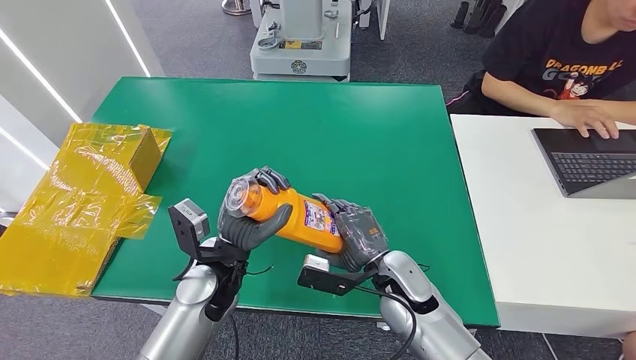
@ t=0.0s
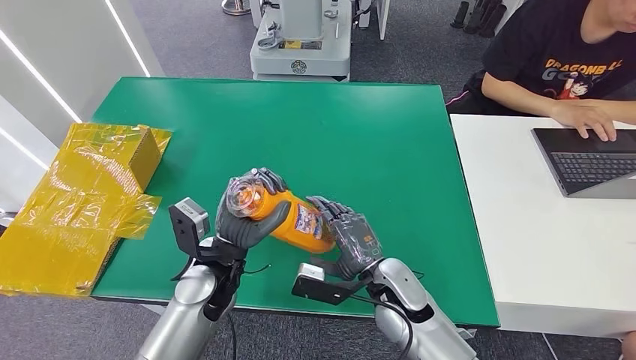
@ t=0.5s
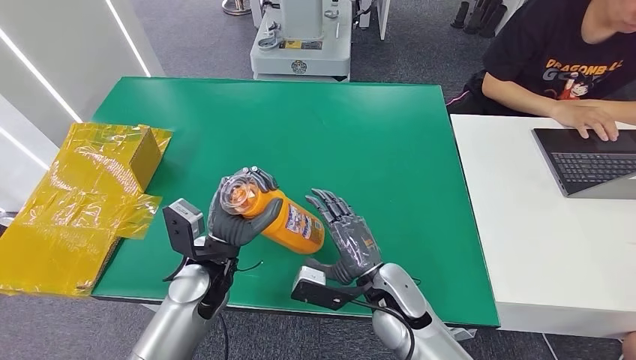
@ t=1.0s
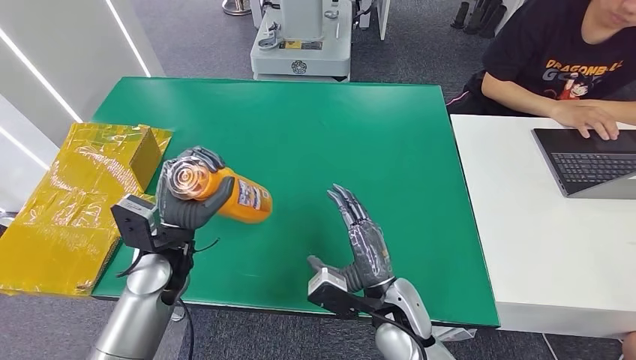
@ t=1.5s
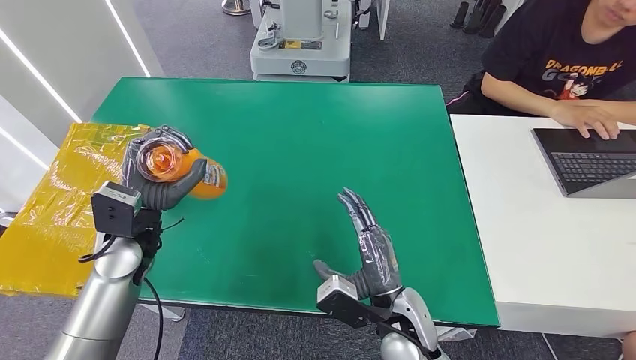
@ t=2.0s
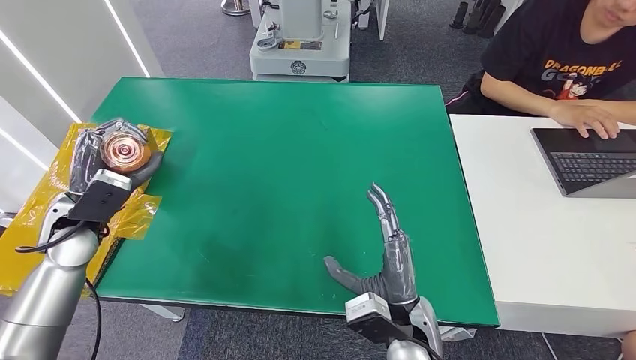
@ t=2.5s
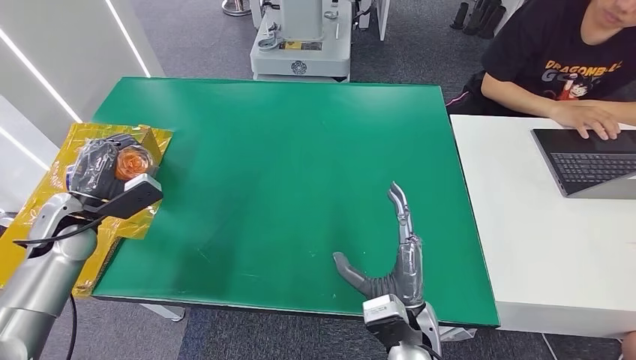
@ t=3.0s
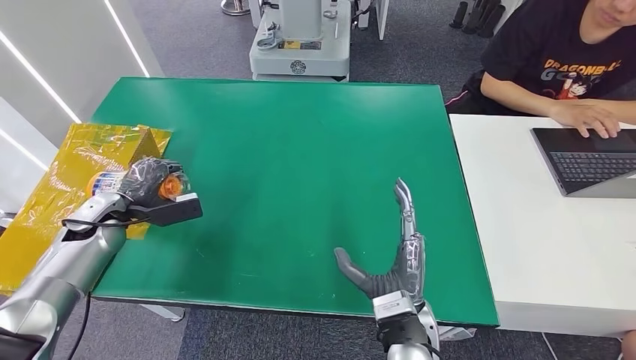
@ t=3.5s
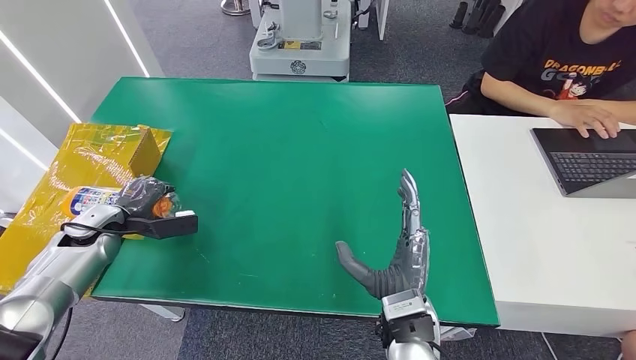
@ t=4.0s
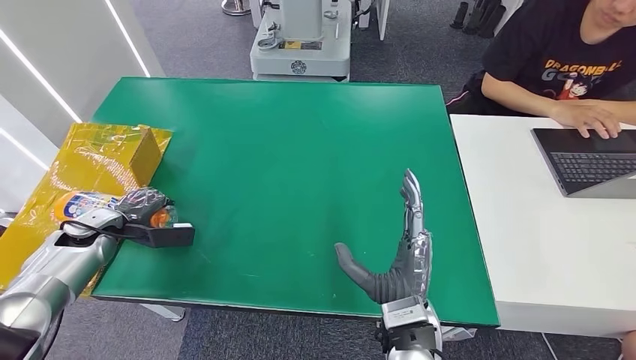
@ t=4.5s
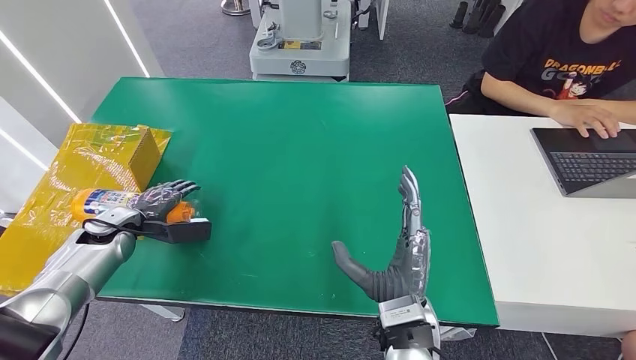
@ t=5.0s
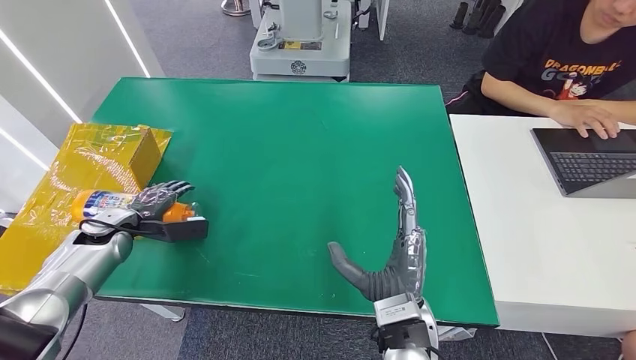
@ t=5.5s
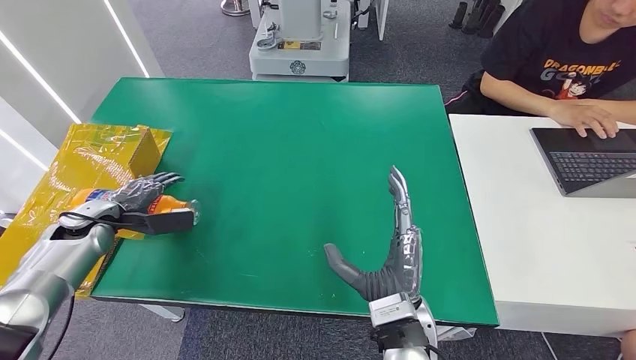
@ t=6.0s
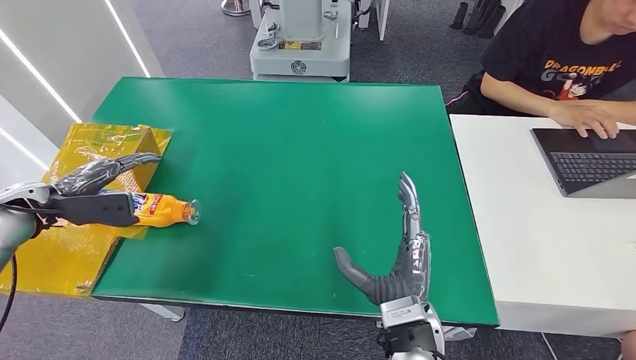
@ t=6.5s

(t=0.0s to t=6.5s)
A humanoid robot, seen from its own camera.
Step, t=0.0s - t=6.5s: Turn the bottle to the front side.
t=0.0s - t=2.0s: The right hand moves backward, roughly 5 cm, while the left hand goes approximately 15 cm to the left.
t=2.0s - t=4.5s: The left hand is displaced to the left and downward by roughly 20 cm.
t=4.5s - t=6.5s: The left hand heads upward, covering roughly 10 cm.
